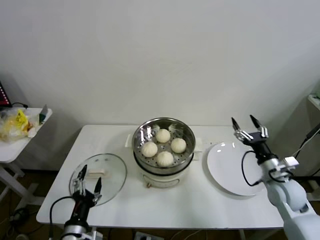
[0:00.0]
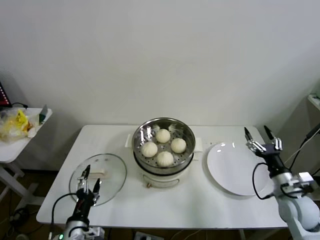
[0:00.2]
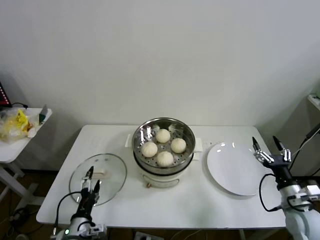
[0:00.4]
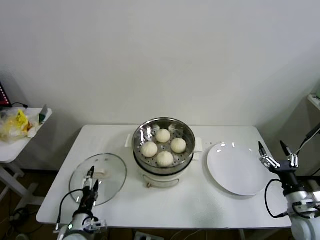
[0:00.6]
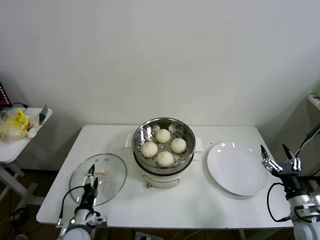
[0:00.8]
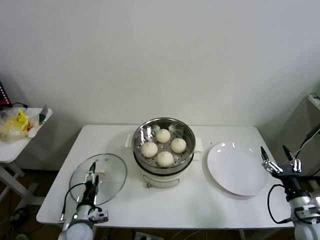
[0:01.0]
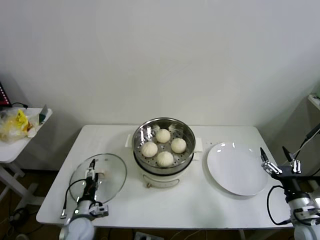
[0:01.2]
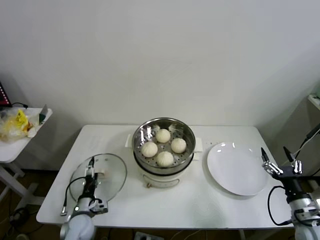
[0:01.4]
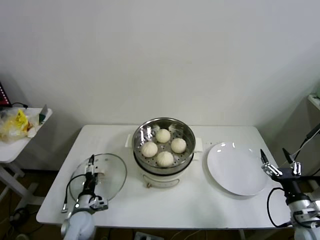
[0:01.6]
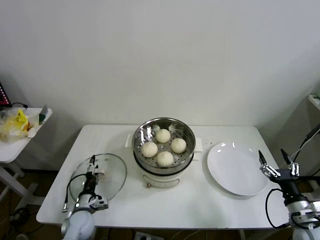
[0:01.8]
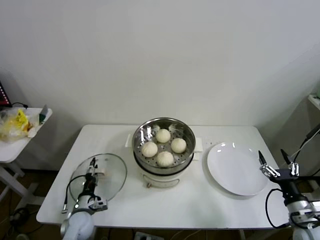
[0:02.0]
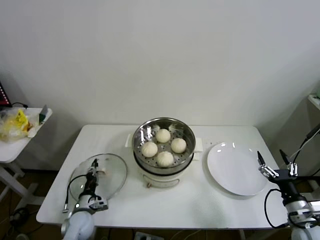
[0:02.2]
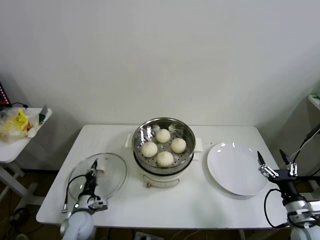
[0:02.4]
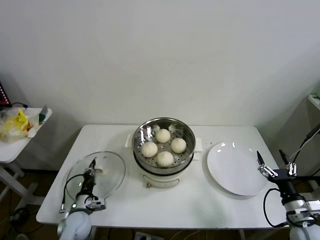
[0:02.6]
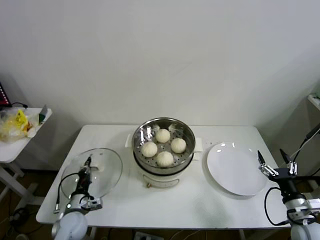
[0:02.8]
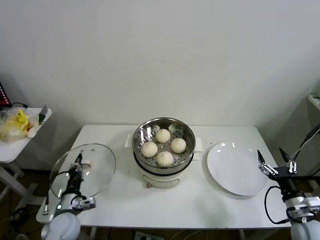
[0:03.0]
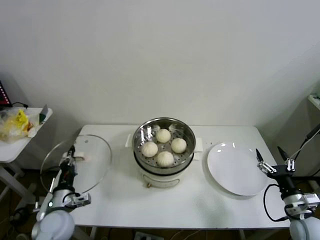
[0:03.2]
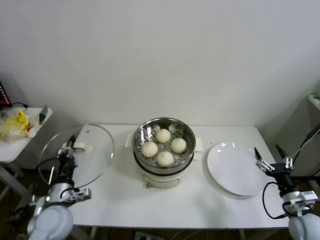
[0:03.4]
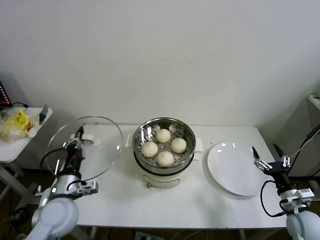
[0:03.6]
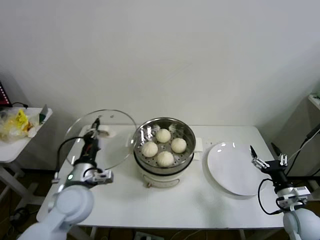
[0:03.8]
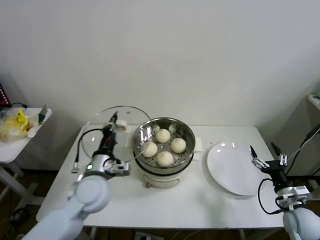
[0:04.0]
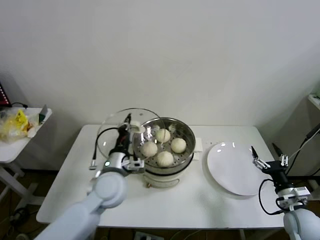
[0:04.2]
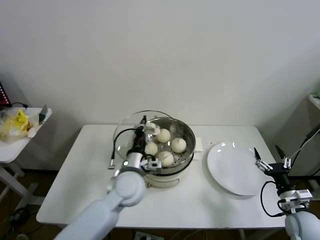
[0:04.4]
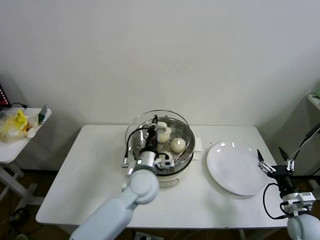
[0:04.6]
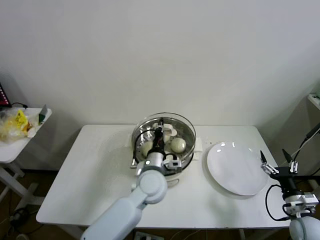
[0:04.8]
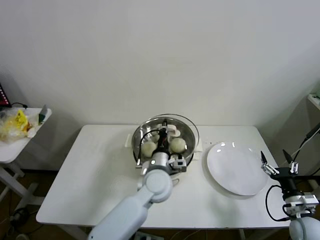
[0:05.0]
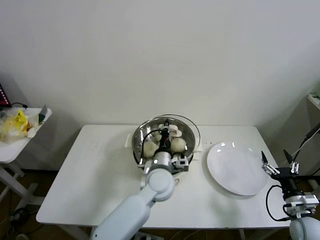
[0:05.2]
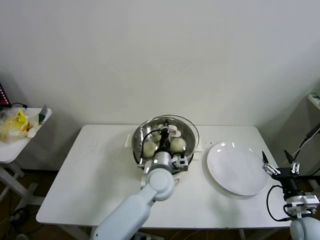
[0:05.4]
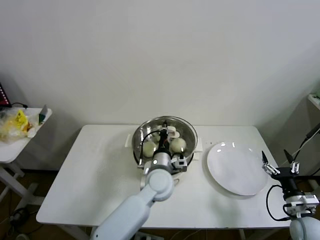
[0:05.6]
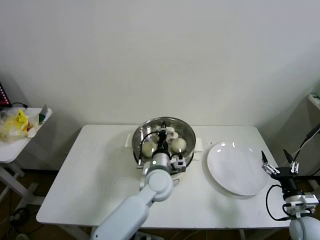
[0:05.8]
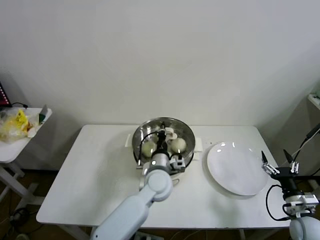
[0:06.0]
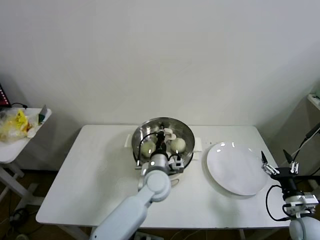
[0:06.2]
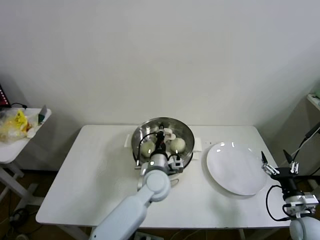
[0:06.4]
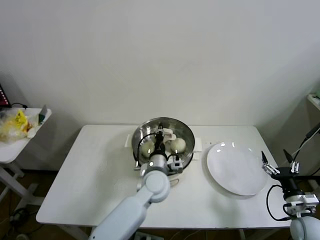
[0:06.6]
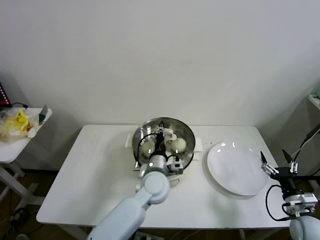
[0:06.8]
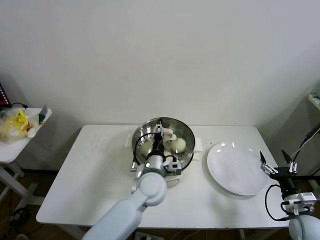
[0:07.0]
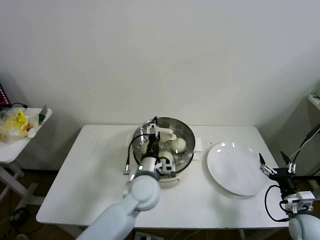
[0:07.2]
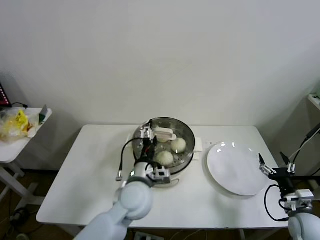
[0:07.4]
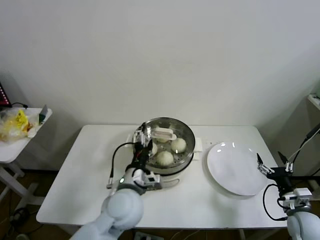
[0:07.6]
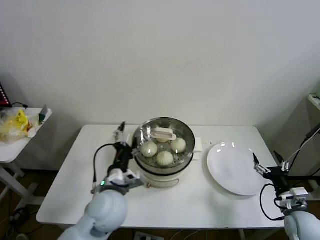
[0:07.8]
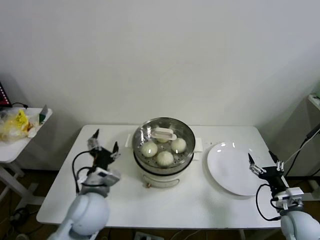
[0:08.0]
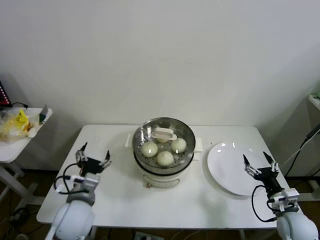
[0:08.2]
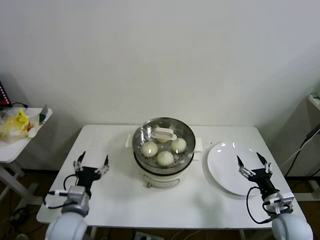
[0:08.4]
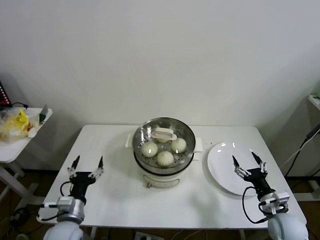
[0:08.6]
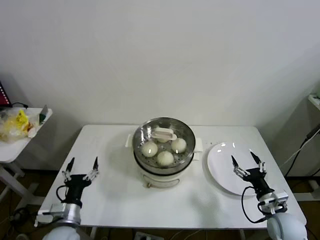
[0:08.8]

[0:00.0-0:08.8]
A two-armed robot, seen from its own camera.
Step, 0:00.0 to 0:02.6: Grasp the pot lid with left gripper.
Step, 0:03.0 to 0:06.4: Place the pot lid on the steamer with left gripper.
0:00.0 to 0:01.4: The left gripper travels forward and downward by roughly 20 cm. Meanwhile the right gripper heads backward, covering roughly 10 cm.
0:01.4 to 0:03.0: The left gripper goes roughly 5 cm upward, and closes up.
0:03.0 to 0:04.4: The left gripper is displaced to the right and upward by about 25 cm.
0:04.4 to 0:05.8: The left gripper moves to the right, some 10 cm.
0:05.8 to 0:07.4: The left gripper heads to the left and backward, covering approximately 5 cm, and opens up.
0:07.4 to 0:08.8: The right gripper travels to the left by roughly 5 cm. Meanwhile the left gripper goes approximately 25 cm to the left, backward and downward.
